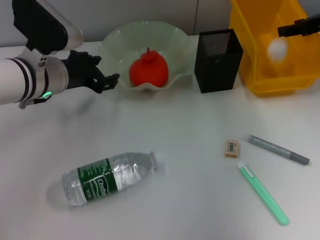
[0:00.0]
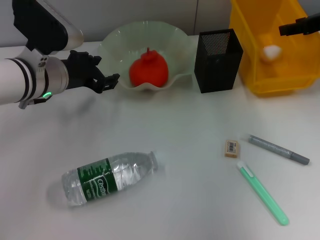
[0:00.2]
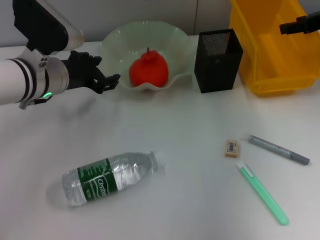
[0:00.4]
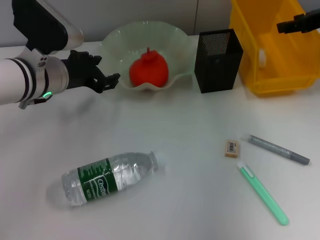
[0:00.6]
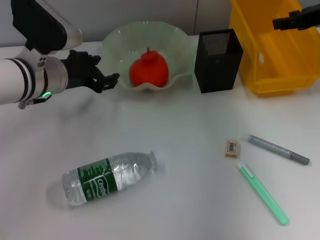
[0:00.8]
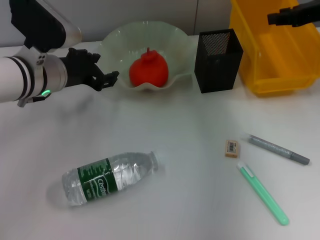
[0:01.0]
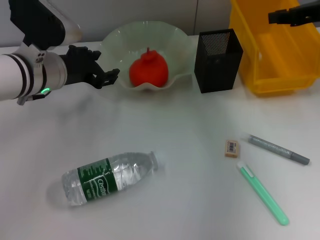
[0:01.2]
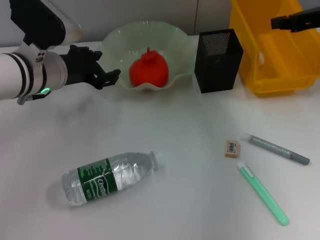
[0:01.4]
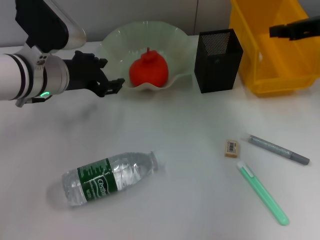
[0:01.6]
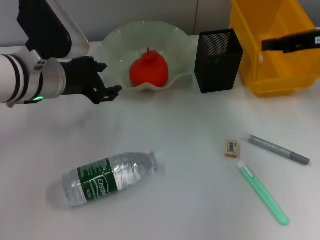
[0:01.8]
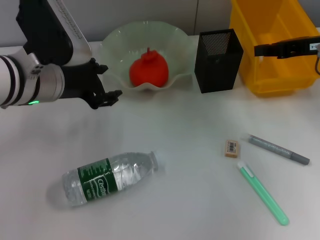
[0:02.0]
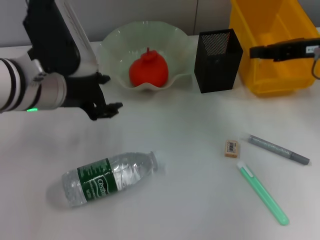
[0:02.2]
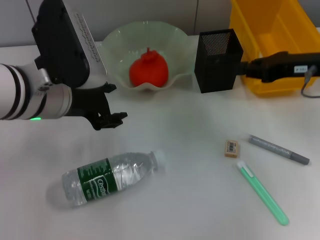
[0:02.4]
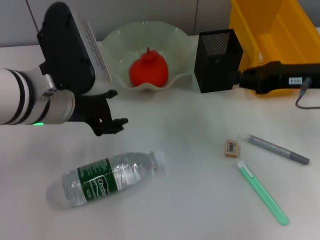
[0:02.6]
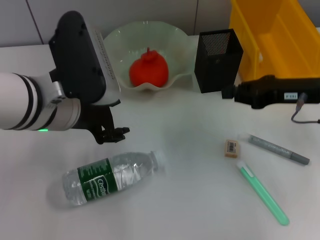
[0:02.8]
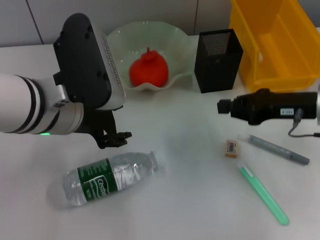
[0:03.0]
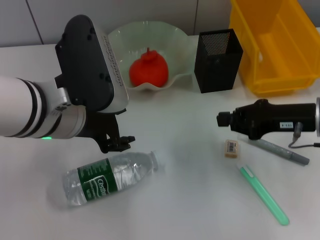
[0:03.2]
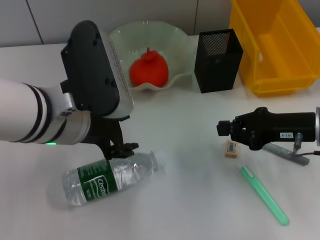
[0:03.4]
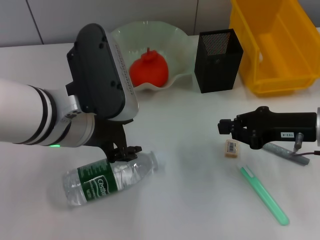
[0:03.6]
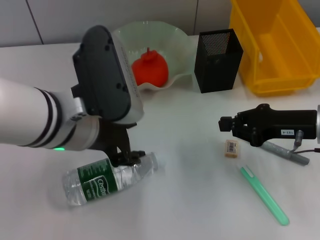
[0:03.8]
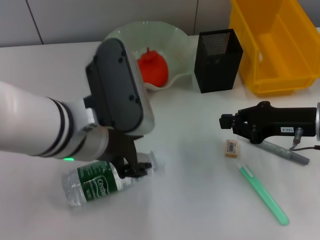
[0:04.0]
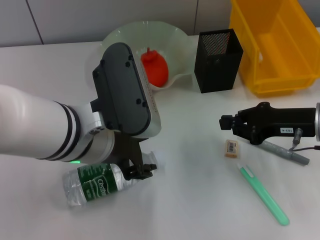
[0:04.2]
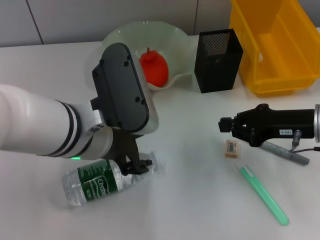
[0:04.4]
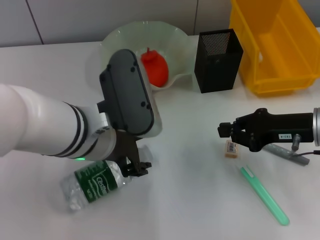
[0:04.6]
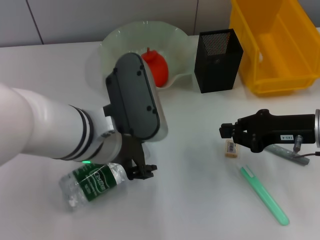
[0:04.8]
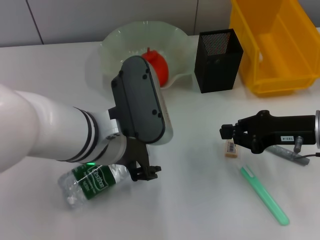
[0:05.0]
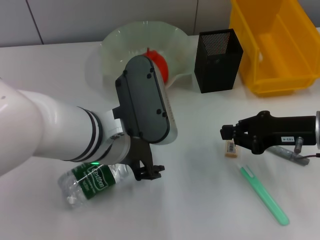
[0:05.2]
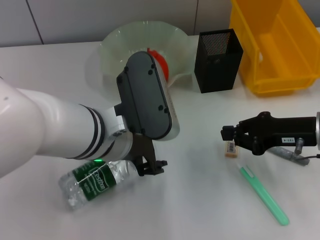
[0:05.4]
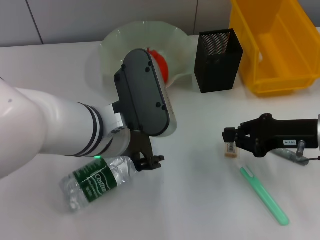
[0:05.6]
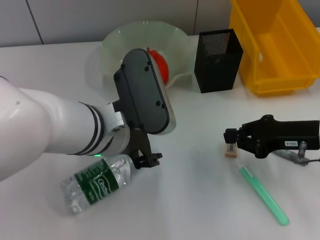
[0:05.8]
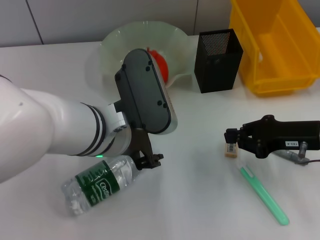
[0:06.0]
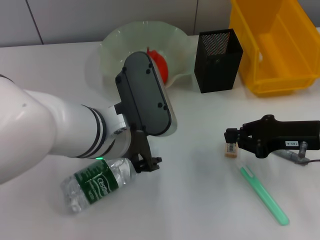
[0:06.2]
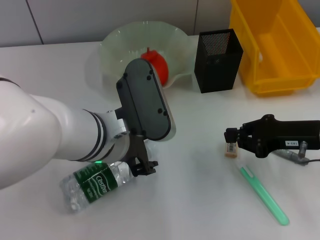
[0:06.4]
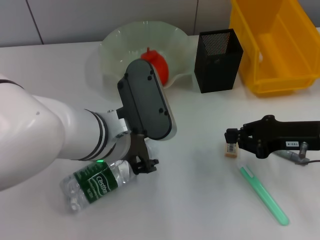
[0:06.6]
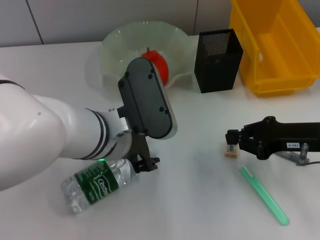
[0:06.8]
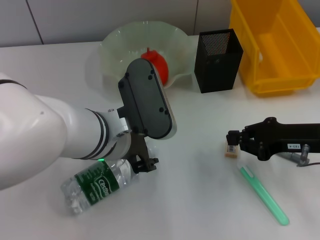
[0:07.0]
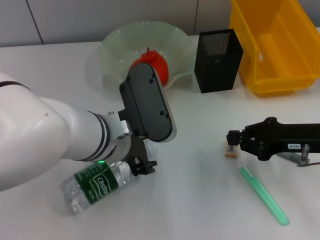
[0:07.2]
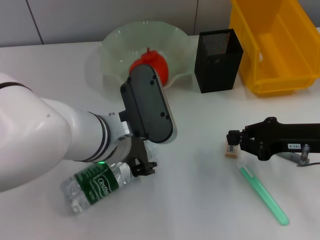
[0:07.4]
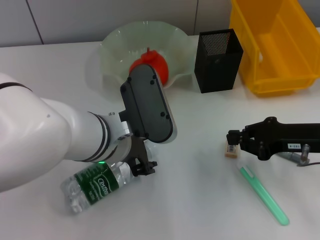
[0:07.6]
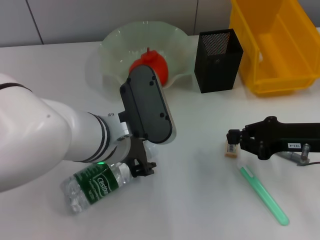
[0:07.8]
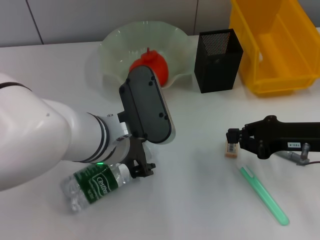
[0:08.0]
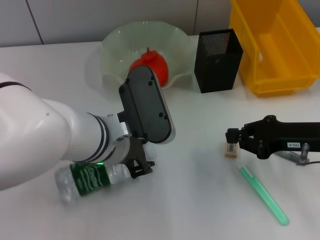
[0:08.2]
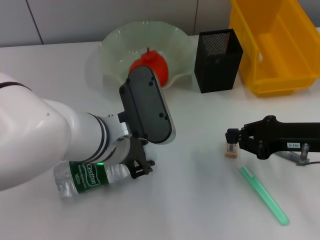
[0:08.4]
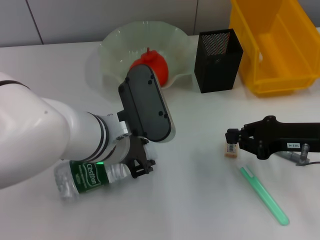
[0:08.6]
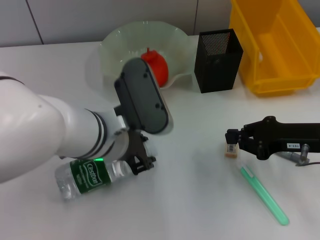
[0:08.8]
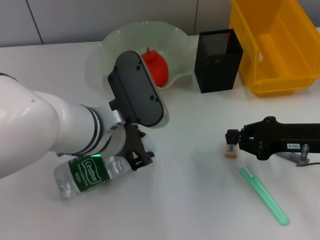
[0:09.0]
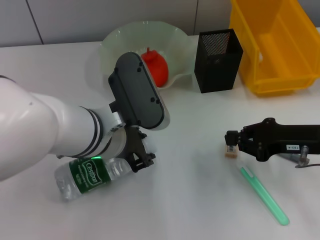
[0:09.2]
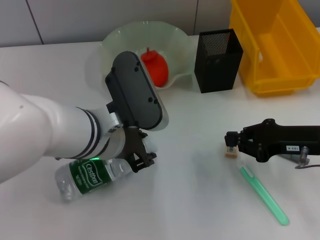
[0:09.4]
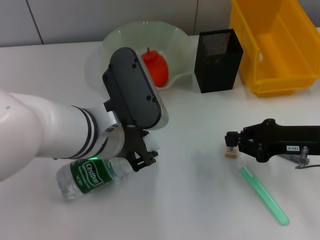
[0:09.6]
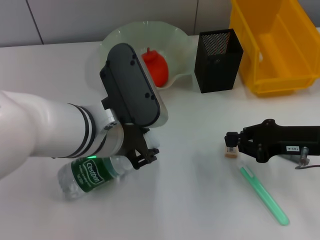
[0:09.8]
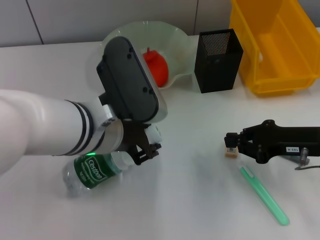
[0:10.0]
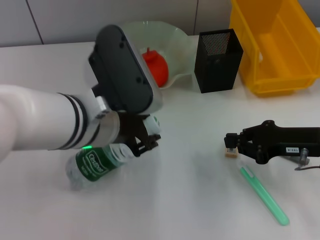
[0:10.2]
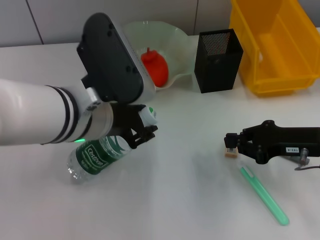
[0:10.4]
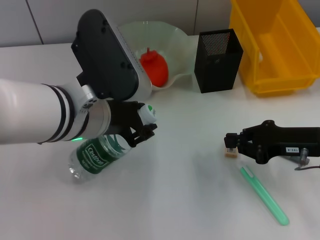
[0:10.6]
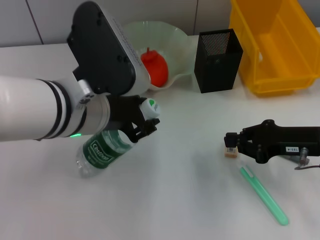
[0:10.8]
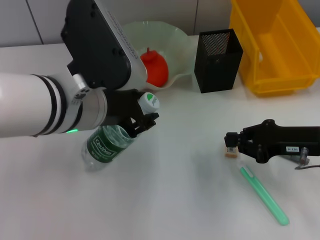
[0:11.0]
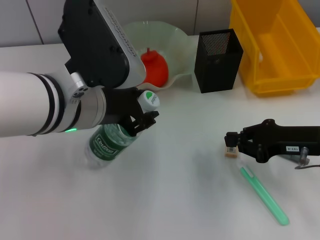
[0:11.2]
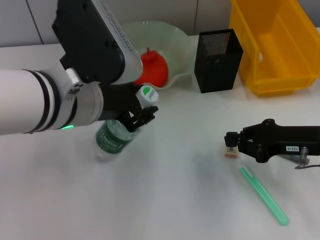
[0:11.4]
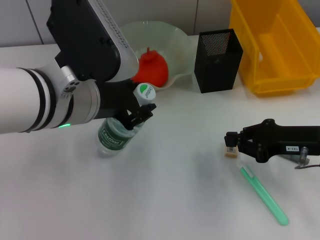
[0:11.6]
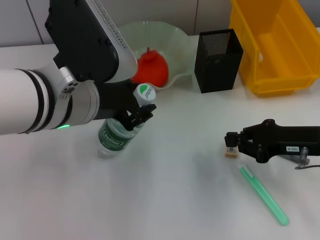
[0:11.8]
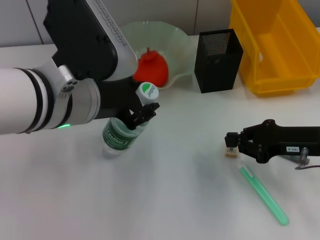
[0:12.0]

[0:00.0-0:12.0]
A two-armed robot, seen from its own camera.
Step, 0:00.6 to 0:08.8: Grab the water bottle with the left hand.
0:00.0 to 0:01.6: The right gripper closes its fingers.
0:01.6 to 0:03.0: The left gripper heads backward, covering roughly 10 cm. Meanwhile the right gripper is displaced downward and backward by roughly 10 cm.
0:04.4 to 0:09.0: The grippers stay close to where they were, moving slightly.
0:09.0 to 0:10.4: The left gripper moves some 5 cm.
0:10.4 to 0:12.0: The grippers move only a little.

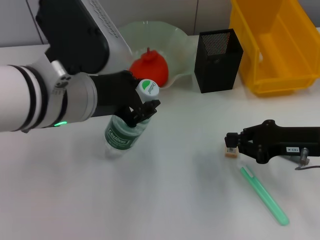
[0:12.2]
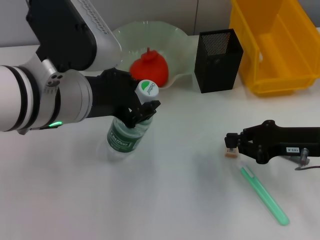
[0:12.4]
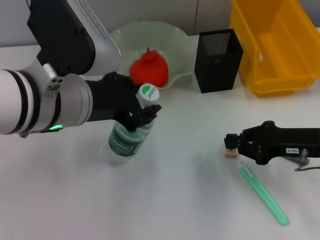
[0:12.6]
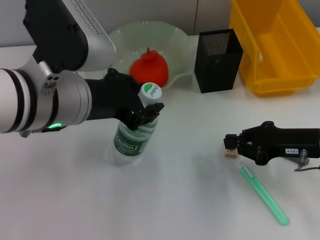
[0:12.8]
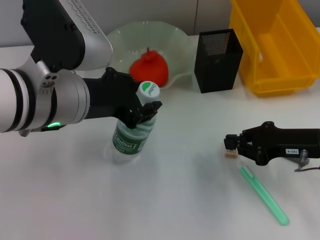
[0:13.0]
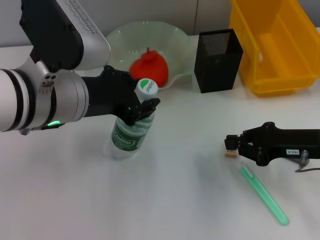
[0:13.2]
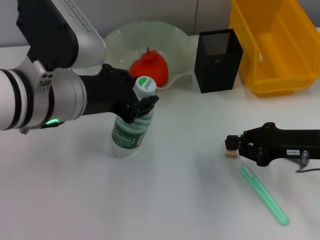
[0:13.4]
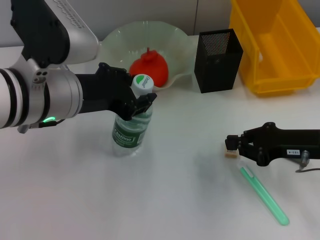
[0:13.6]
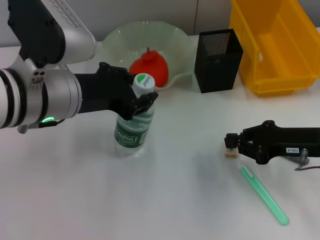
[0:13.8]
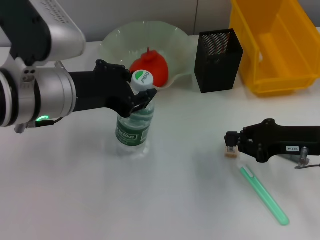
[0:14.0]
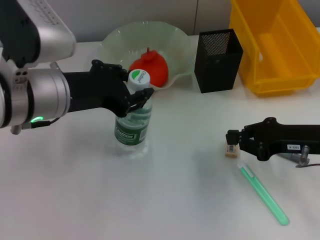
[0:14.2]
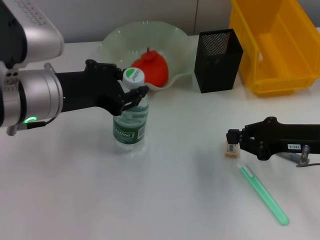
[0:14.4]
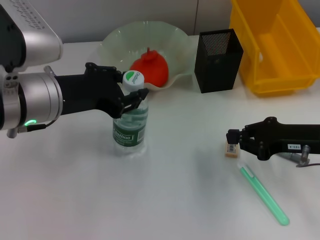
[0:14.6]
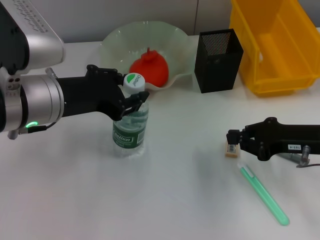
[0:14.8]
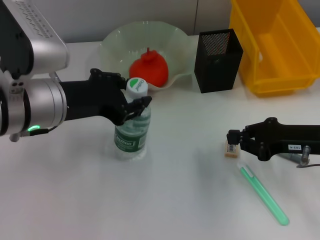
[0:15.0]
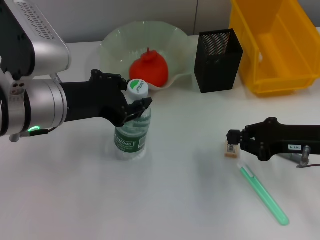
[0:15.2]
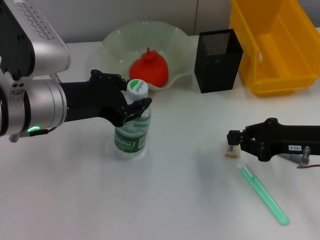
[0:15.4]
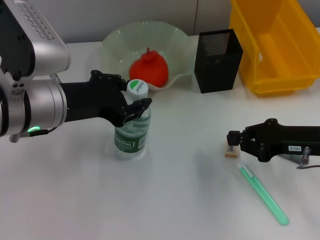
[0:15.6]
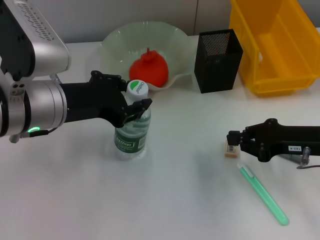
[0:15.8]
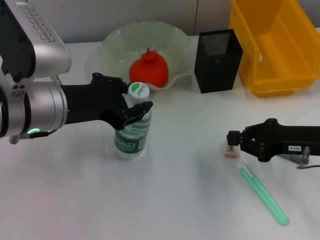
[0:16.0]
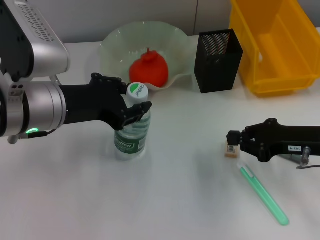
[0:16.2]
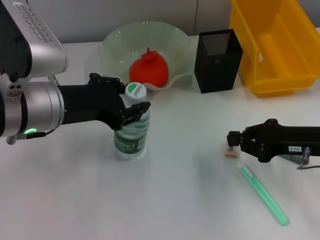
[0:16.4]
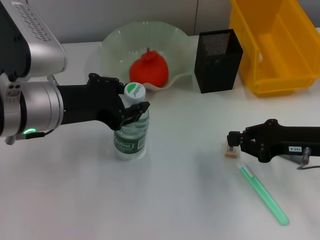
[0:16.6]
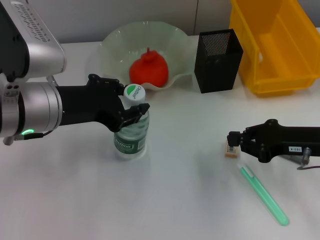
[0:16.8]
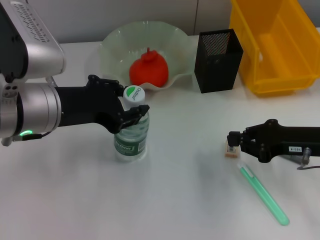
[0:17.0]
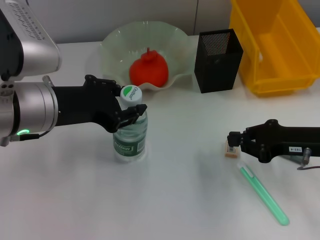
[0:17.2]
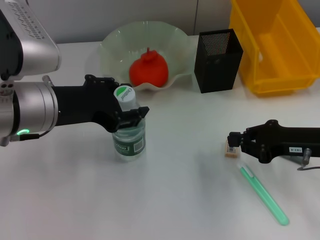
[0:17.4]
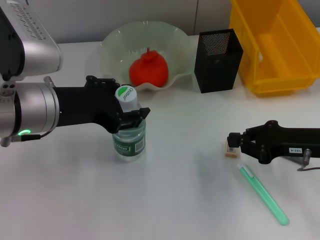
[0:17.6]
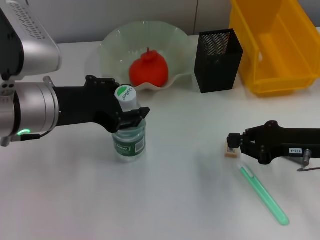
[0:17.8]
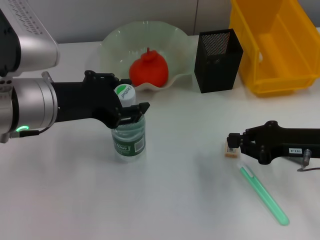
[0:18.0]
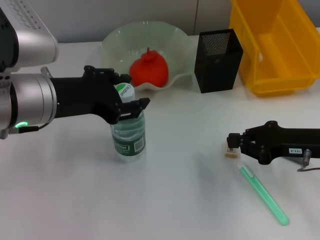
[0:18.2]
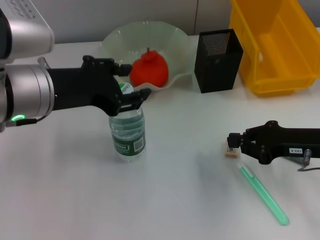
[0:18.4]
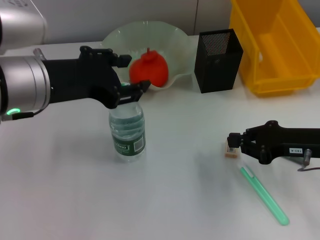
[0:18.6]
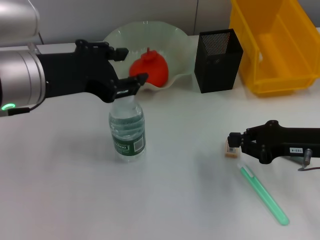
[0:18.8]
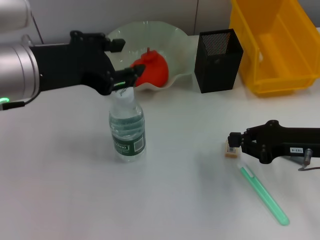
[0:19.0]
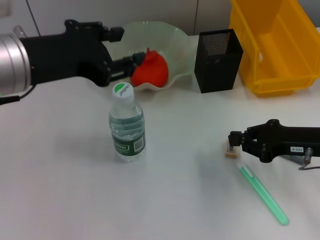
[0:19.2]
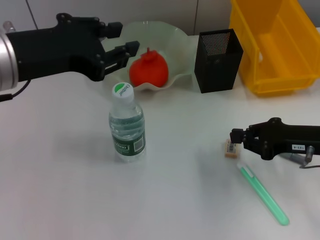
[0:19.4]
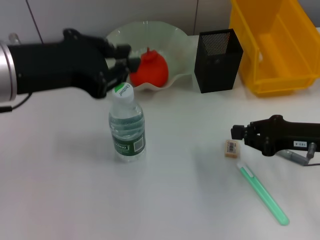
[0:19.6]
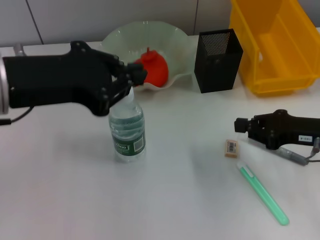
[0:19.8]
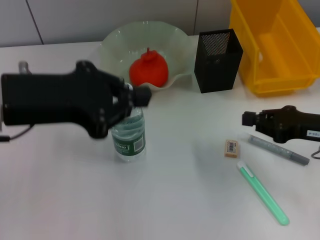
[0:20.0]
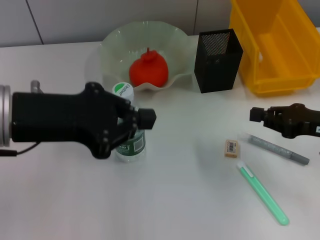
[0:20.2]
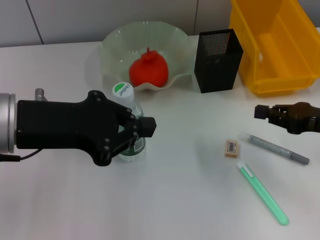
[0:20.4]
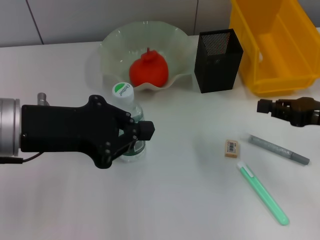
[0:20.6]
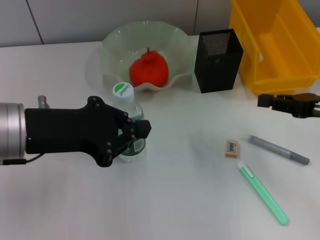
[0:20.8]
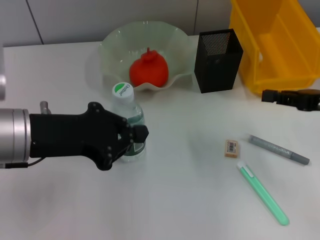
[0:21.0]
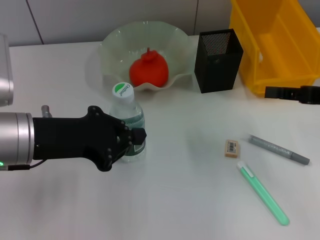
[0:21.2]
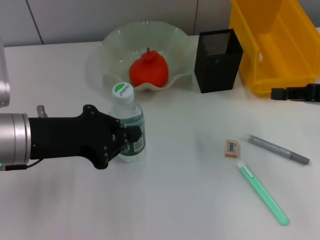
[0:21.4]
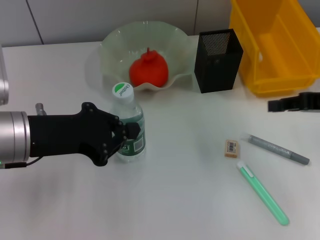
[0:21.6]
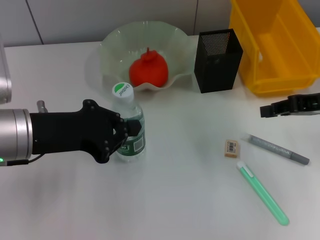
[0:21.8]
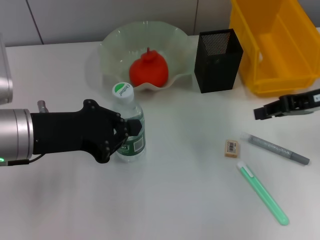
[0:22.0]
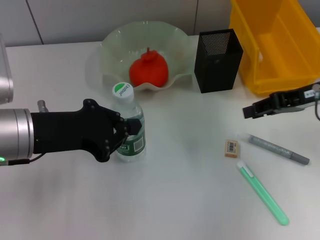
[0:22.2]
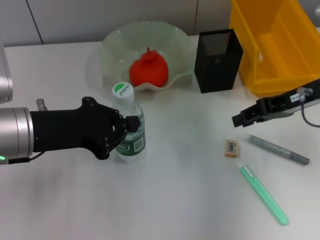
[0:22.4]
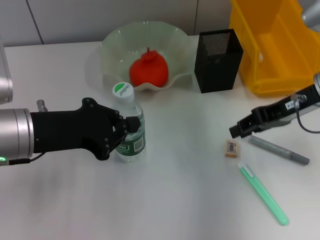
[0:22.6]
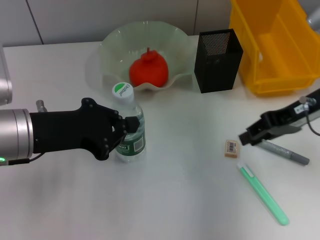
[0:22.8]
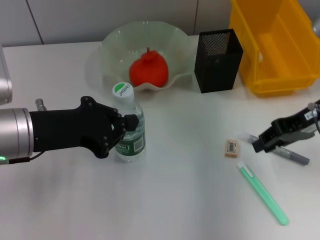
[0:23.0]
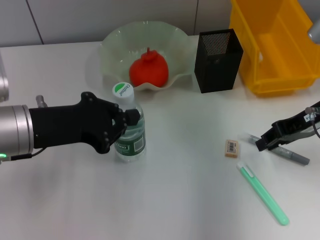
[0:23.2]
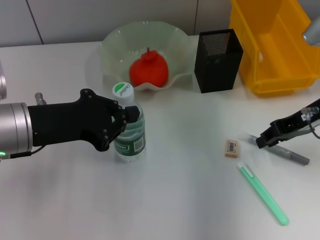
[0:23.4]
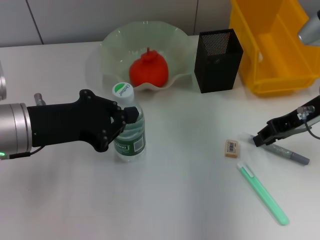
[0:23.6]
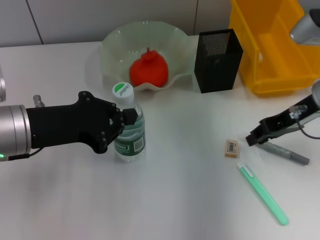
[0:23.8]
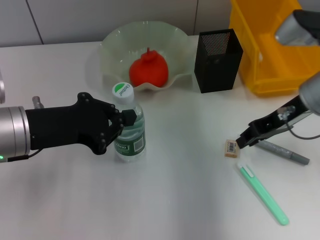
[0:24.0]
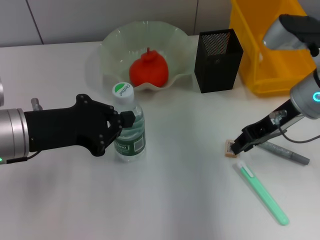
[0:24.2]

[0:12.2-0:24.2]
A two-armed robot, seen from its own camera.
Step, 0:12.2 to 0:18.6: Place the water bottle on the table with the left hand.
0:12.2 to 0:15.2: The grippers move only a little.
0:15.2 to 0:16.6: The two grippers keep their place.
0:16.6 to 0:18.2: There are only small adjustments of the grippers.
0:18.2 to 0:19.8: The left gripper heads upward, covering about 5 cm, and closes its fingers.
0:19.8 to 0:21.2: The right gripper shifts some 5 cm upward, while the left gripper moves downward, some 10 cm.
0:21.2 to 0:22.6: The right gripper goes some 10 cm to the left and forward.
0:22.6 to 0:24.2: There are only small adjustments of the grippers.
